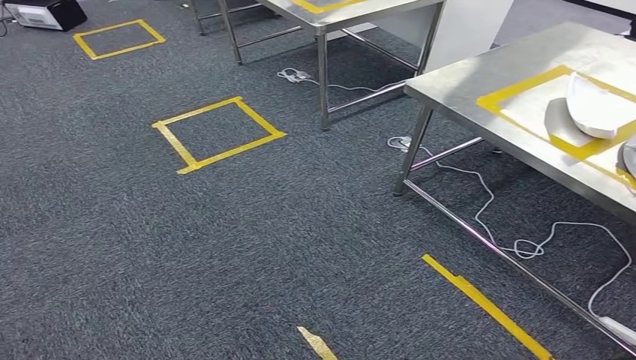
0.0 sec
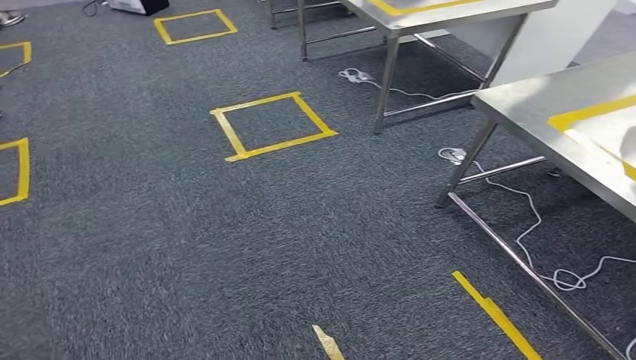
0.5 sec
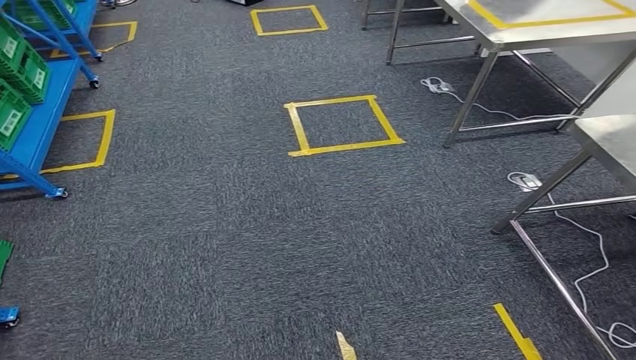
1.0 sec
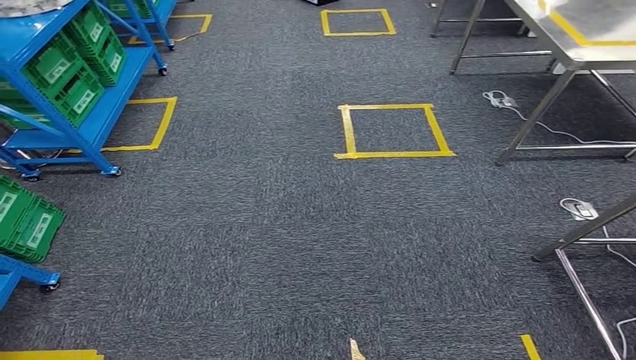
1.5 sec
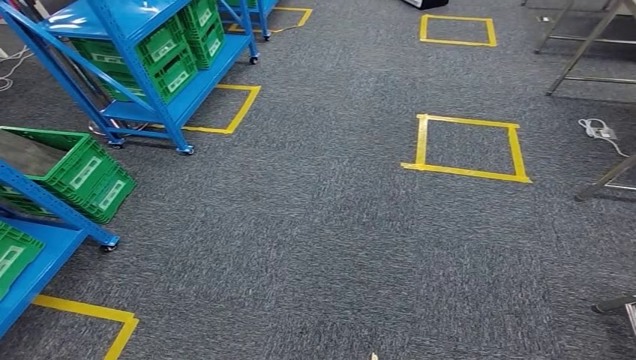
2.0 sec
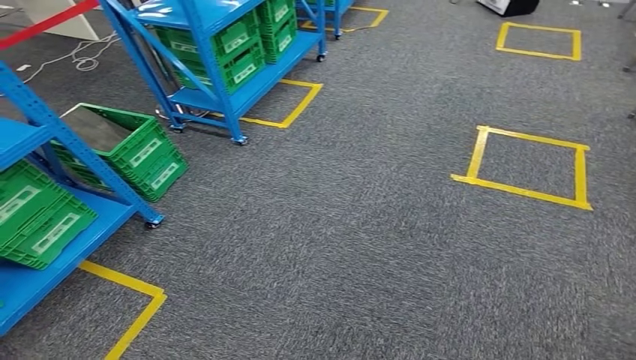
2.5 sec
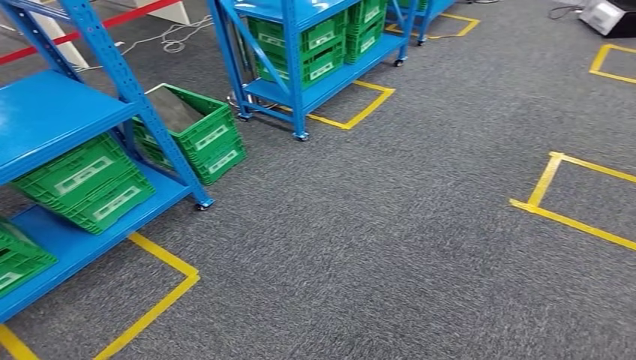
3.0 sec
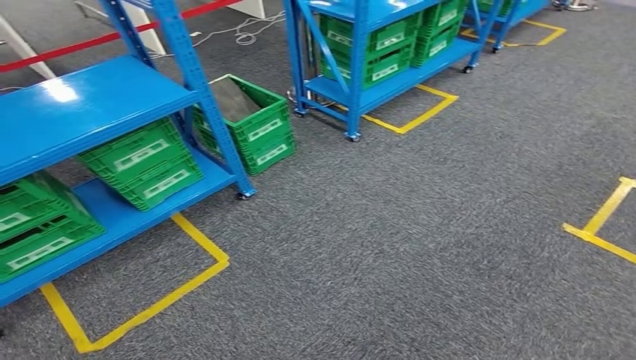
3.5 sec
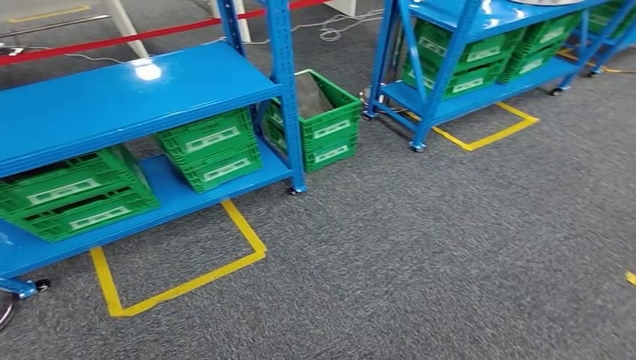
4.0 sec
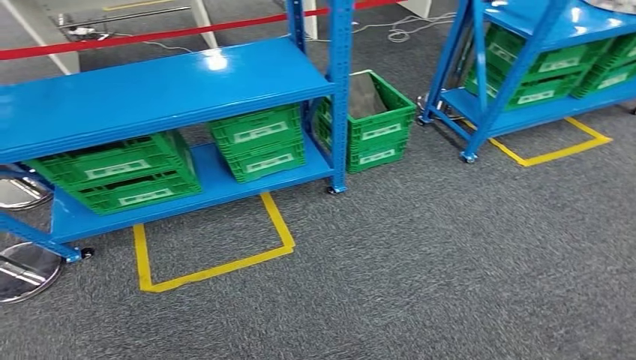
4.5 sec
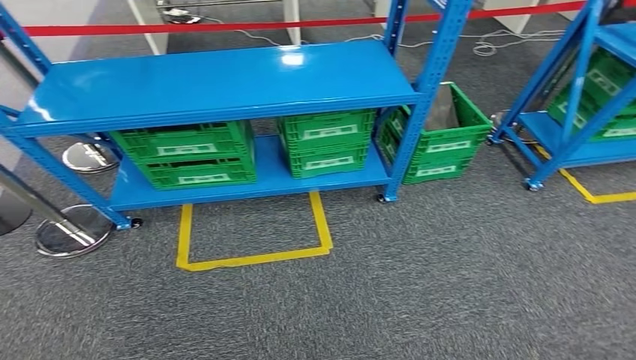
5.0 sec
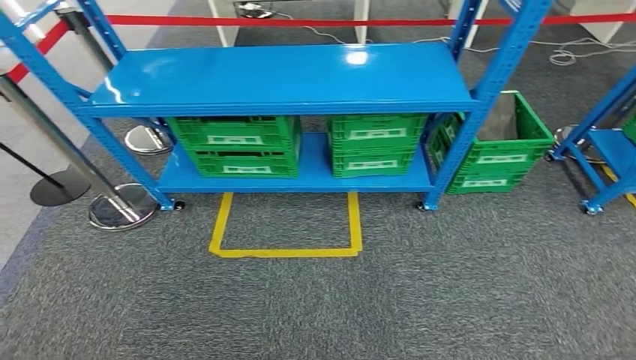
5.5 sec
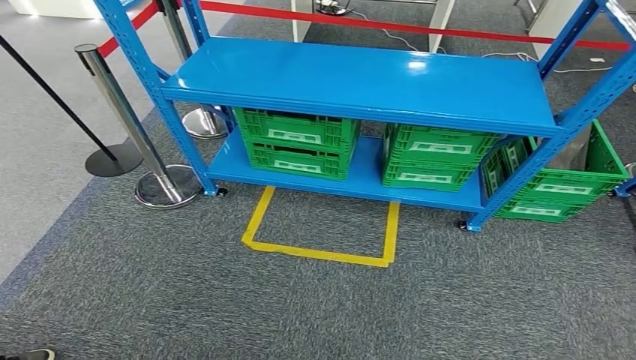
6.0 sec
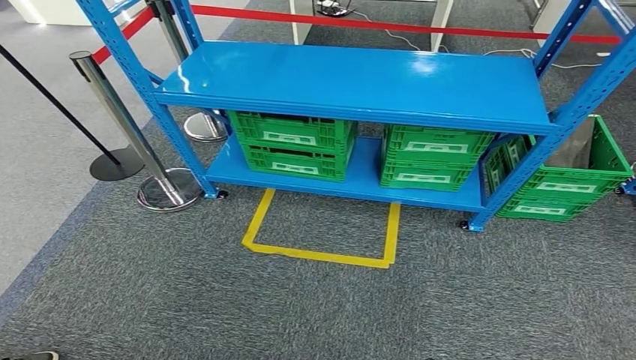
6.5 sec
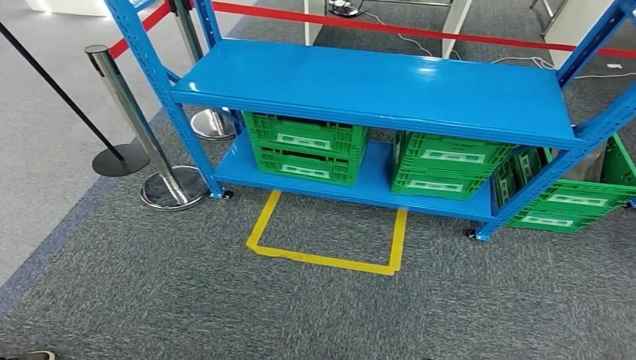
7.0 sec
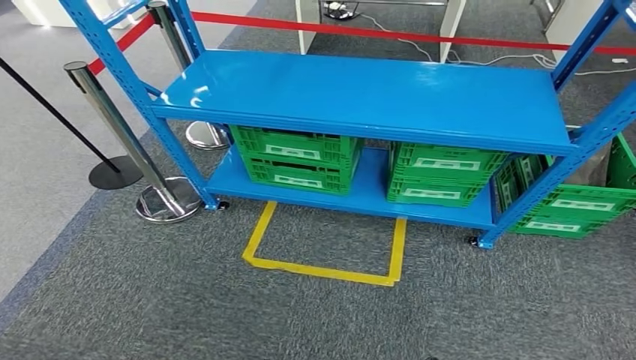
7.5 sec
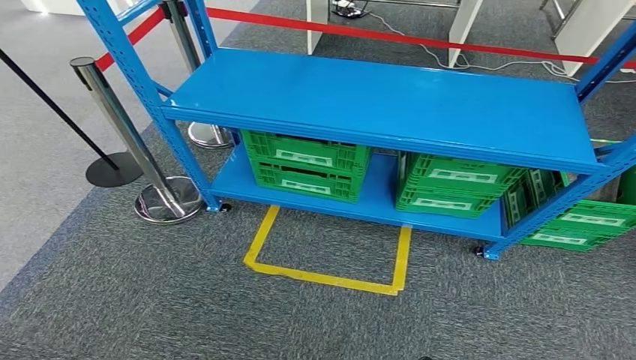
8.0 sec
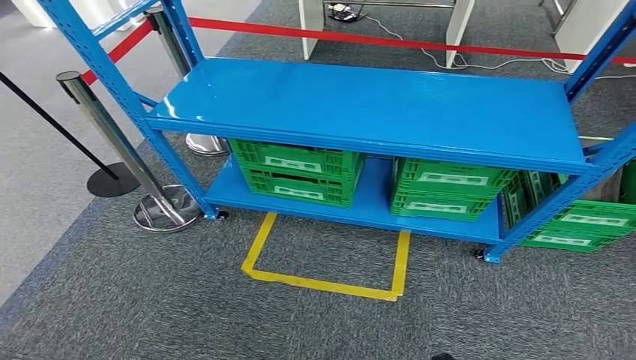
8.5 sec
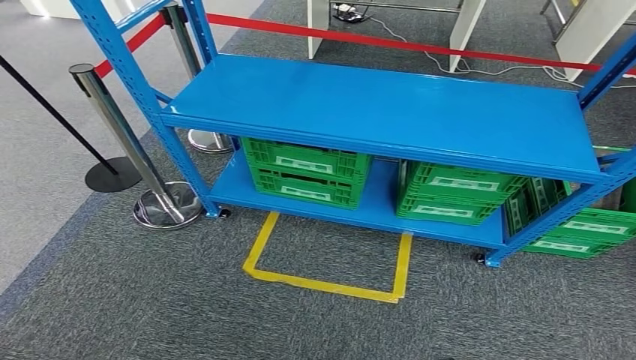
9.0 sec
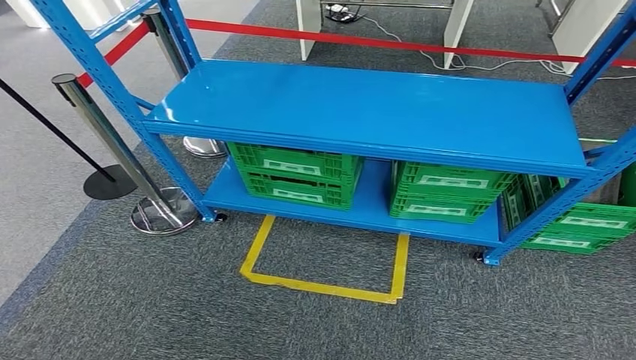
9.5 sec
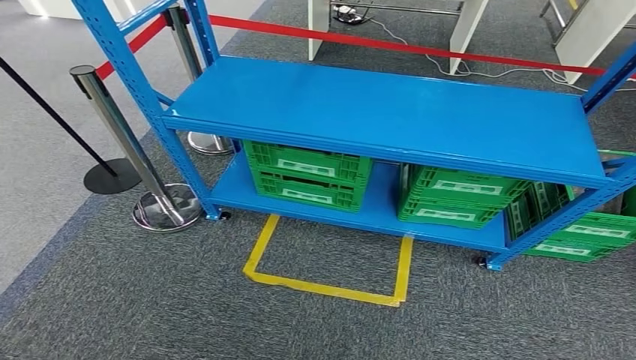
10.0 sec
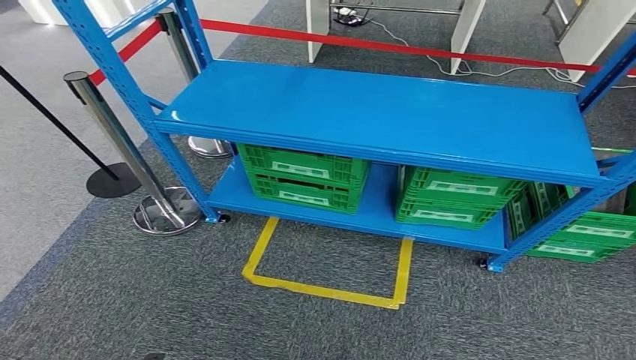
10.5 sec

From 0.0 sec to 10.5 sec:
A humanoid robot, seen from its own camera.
Step, from 0.0 sec to 10.5 sec: Move to the initial position at the workbench.
From 8.5 sec to 10.5 sec: The right hand moves backward, approximately 10 cm; the left hand shifts by about 5 cm.

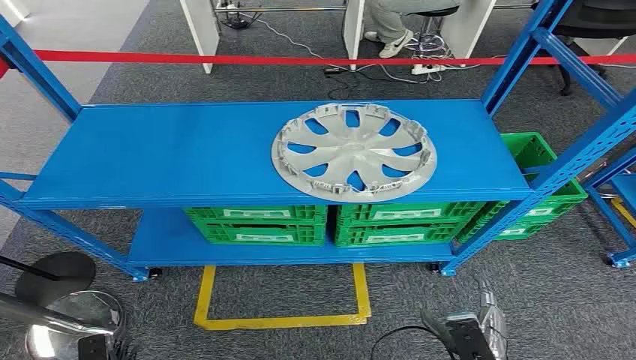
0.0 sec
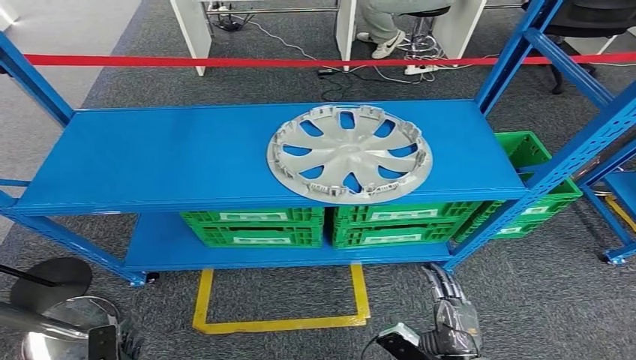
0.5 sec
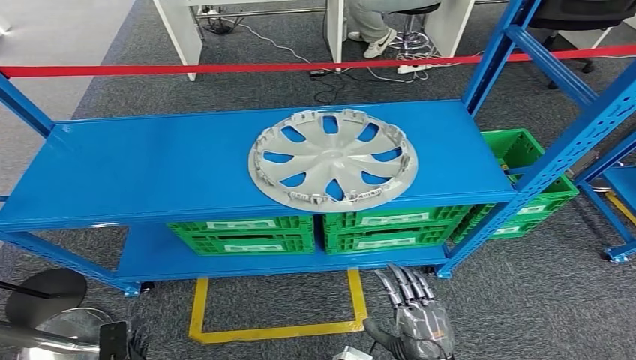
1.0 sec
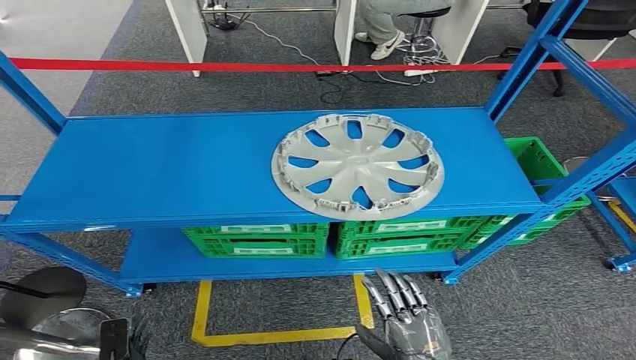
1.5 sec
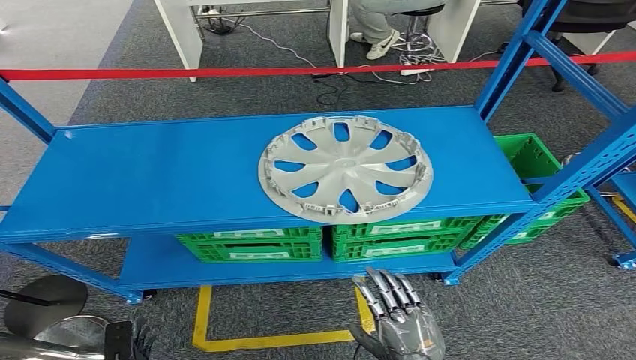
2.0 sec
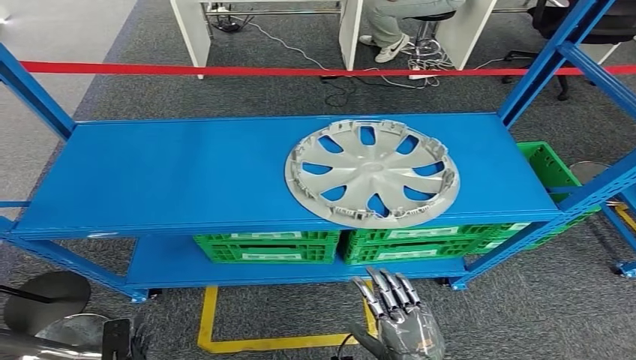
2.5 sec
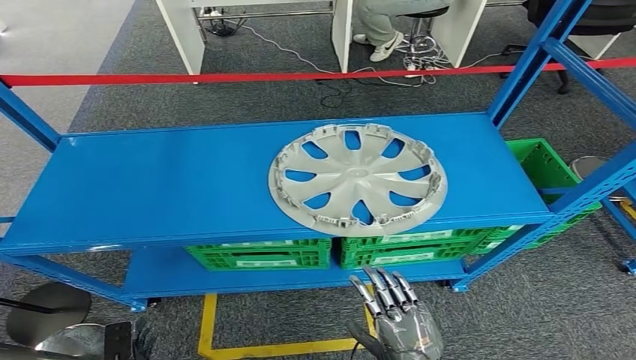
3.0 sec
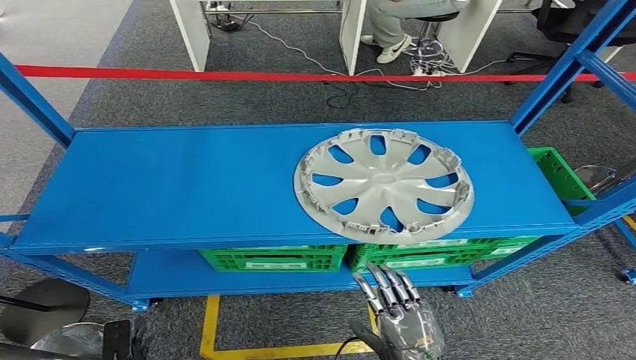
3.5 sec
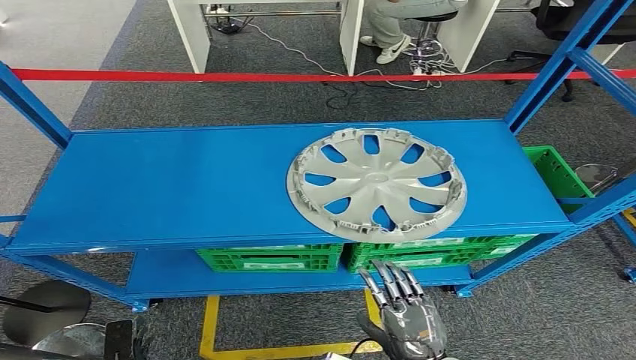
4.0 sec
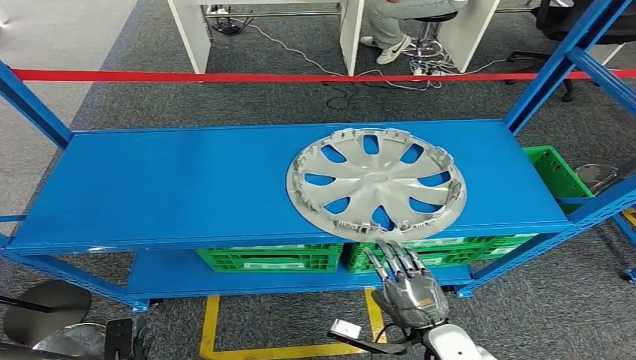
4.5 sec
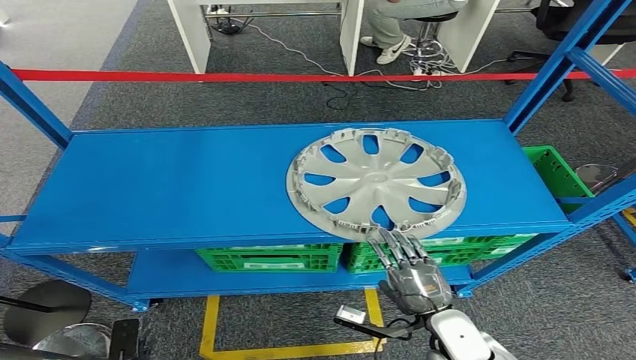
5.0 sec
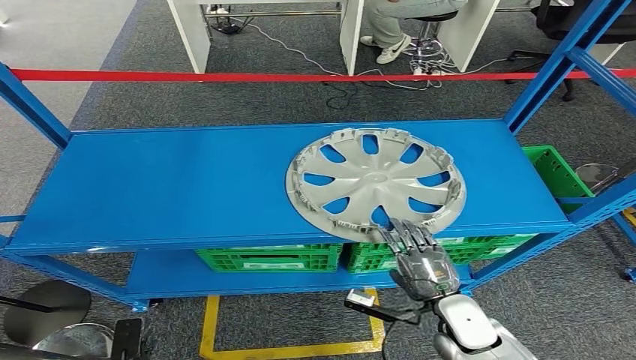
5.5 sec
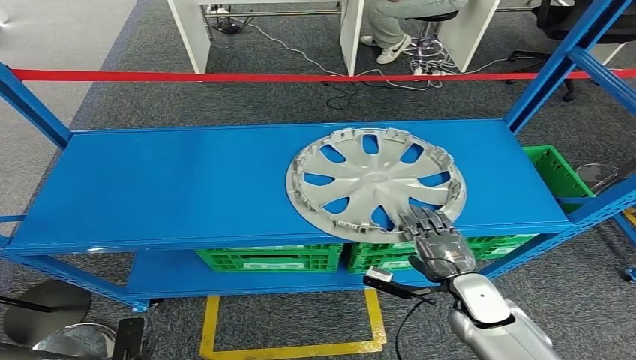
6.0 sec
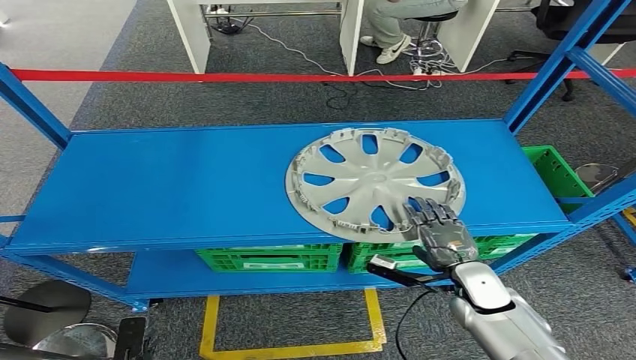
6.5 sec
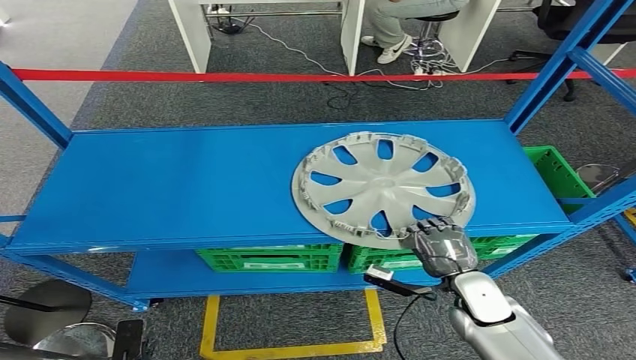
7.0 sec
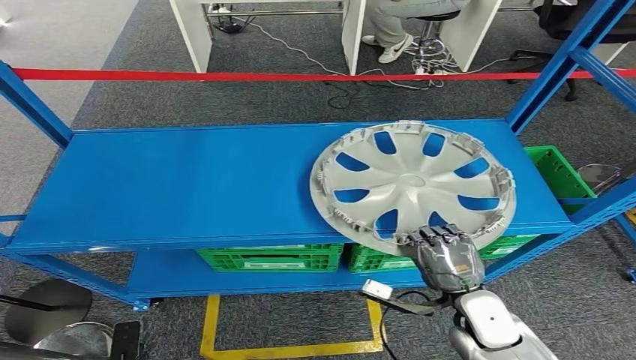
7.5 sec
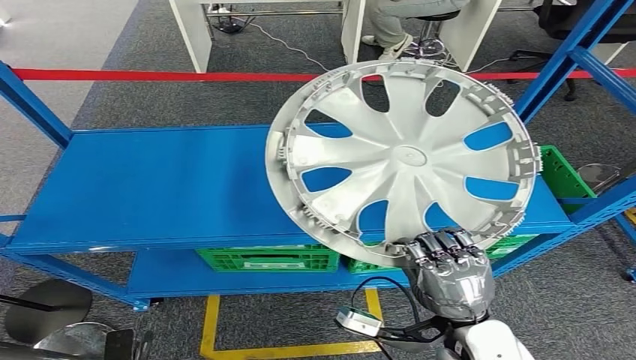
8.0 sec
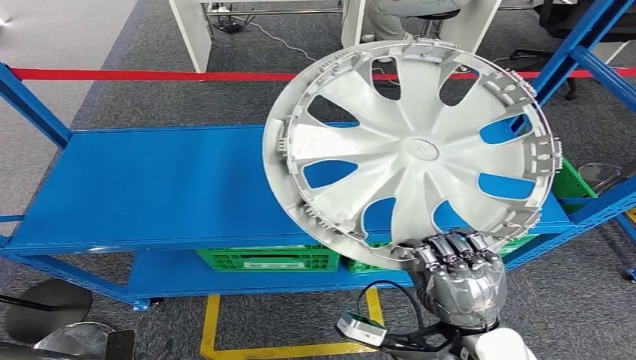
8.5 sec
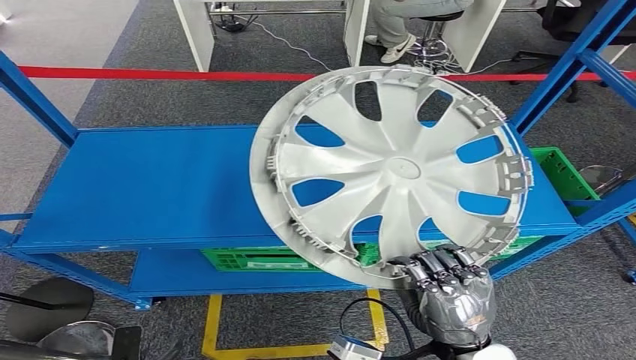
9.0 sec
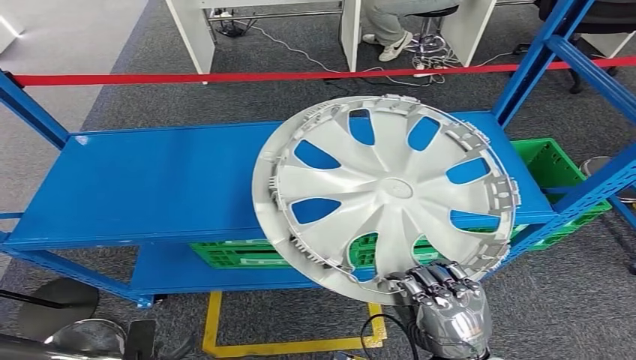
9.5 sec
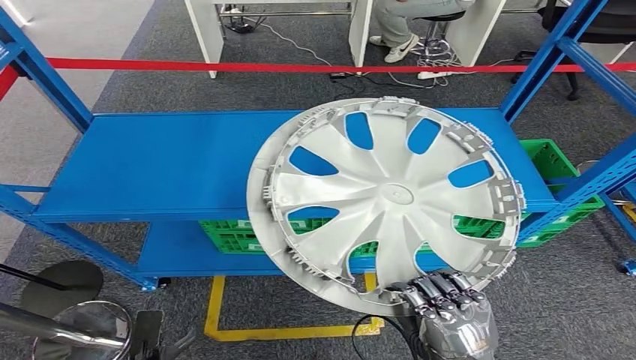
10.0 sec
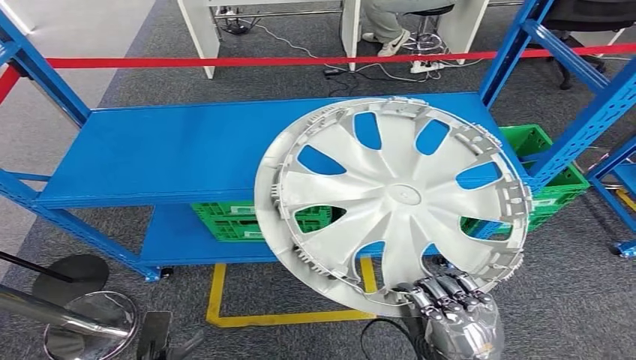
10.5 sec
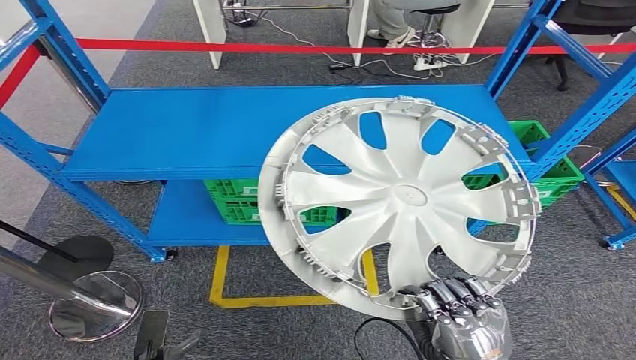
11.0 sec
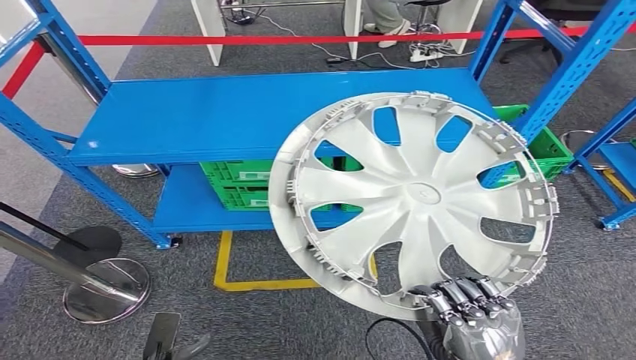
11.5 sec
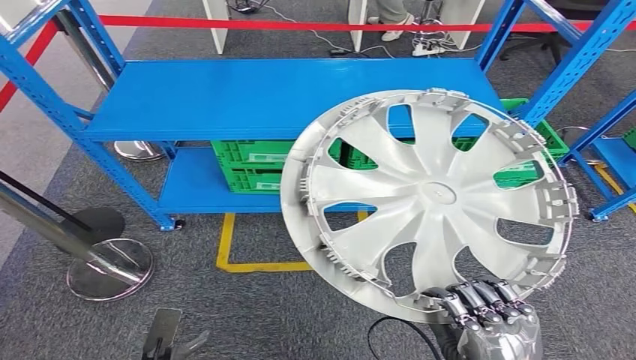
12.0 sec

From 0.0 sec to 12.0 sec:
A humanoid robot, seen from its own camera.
Step, from 0.0 sec to 12.0 sec: Pick up the small parts from the shelf.
From 4.0 sec to 6.0 sec: The right hand heads forward and to the right, covering approximately 15 cm.
